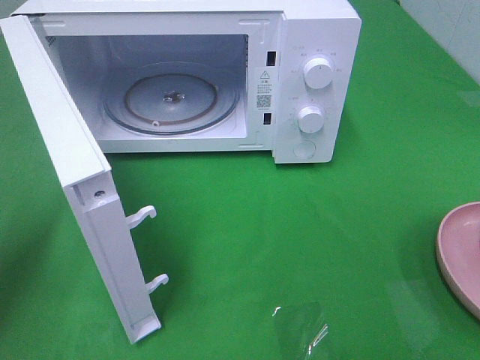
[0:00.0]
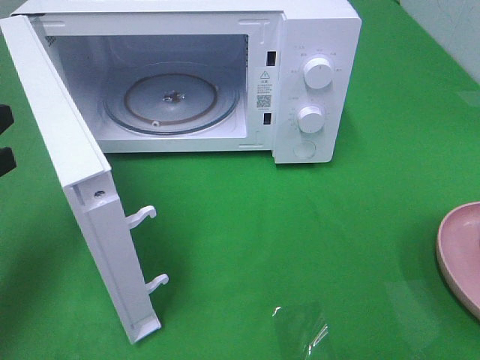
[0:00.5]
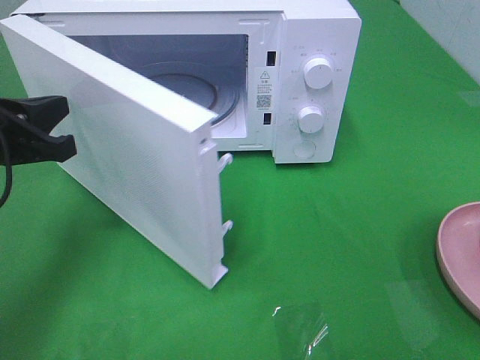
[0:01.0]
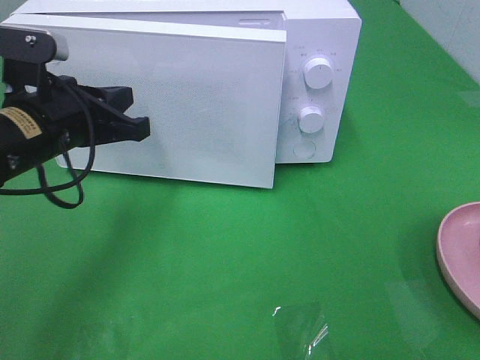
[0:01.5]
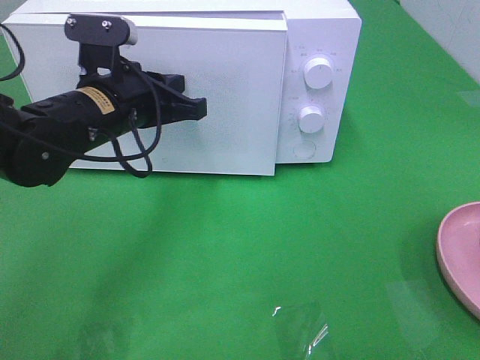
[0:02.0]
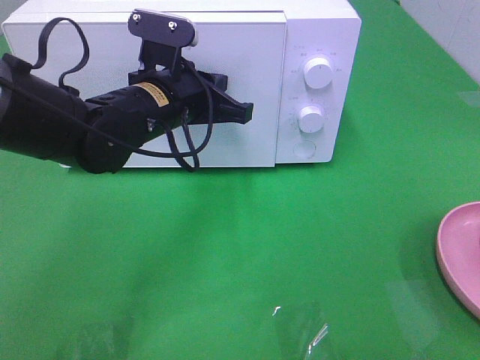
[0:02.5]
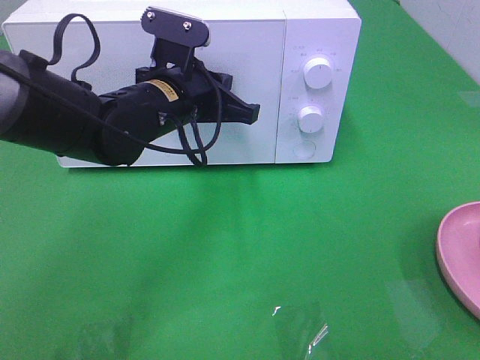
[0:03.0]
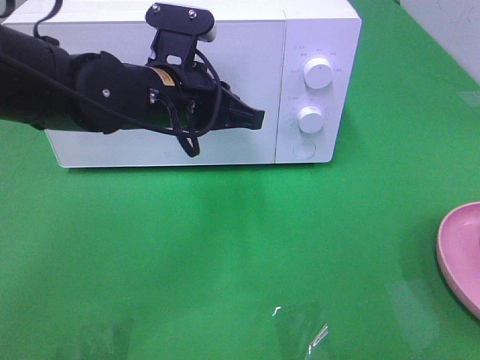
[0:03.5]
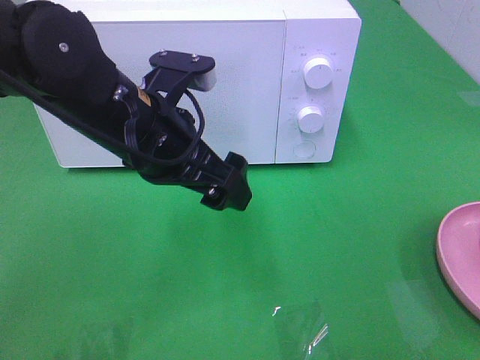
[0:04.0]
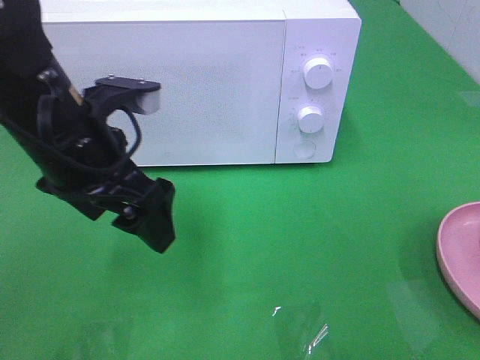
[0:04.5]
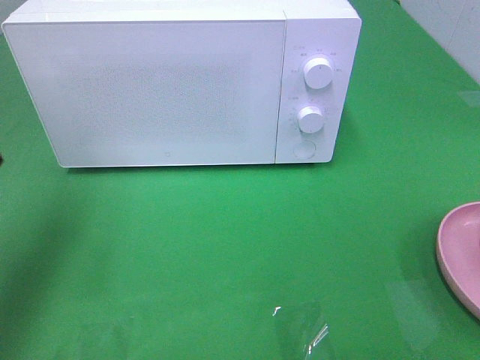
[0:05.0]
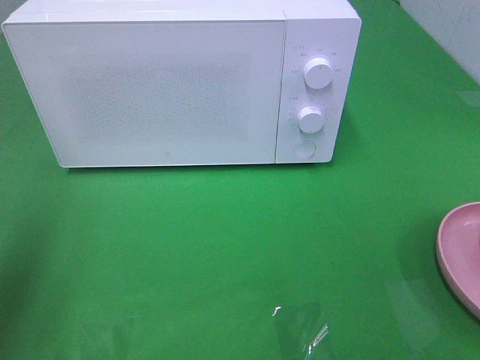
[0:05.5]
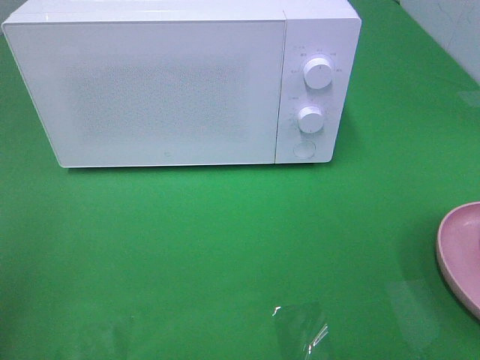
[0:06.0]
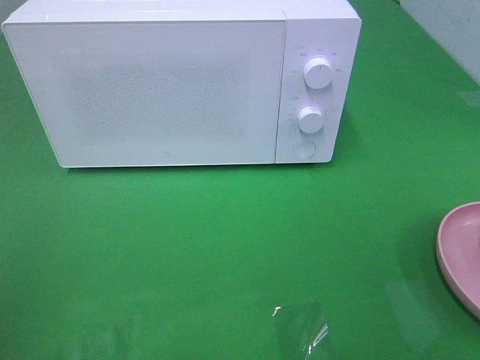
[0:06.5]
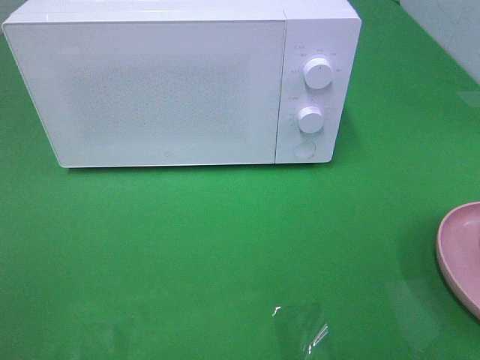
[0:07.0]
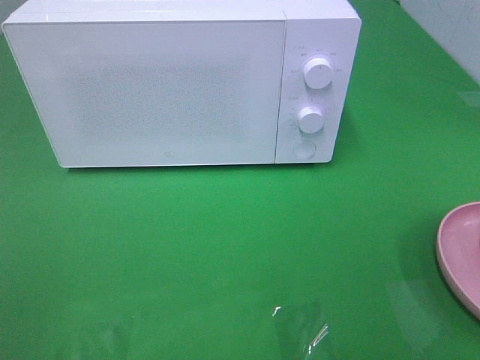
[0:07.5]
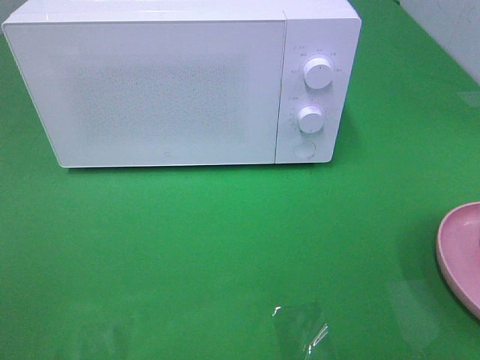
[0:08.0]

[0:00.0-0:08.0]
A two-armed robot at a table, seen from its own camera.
Task of the whole recording: Heat the burger.
Step, 0:00.0 to 0:04.0: Left hand: close the microwave door.
0:00.0 to 0:02.0: The left gripper is displaced to the right and forward by about 25 cm.
0:02.0 to 0:04.0: The left gripper travels backward by some 5 cm, and opens its fingers.
0:04.0 to 0:06.0: The left gripper goes roughly 30 cm to the left and backward.
